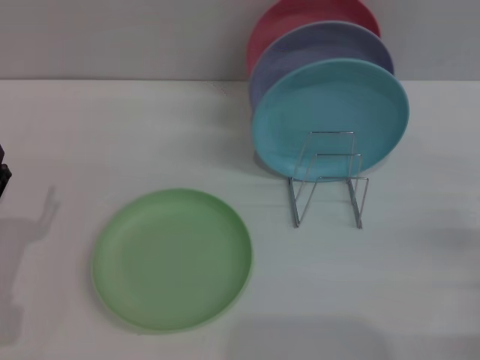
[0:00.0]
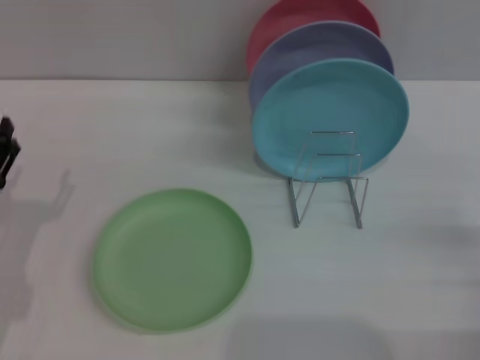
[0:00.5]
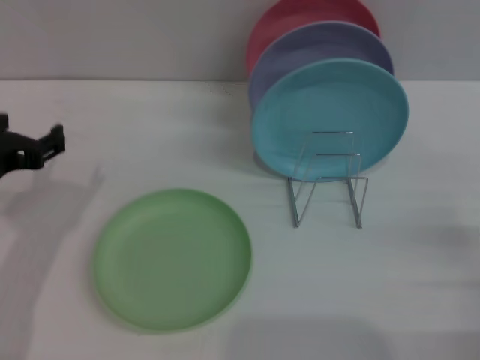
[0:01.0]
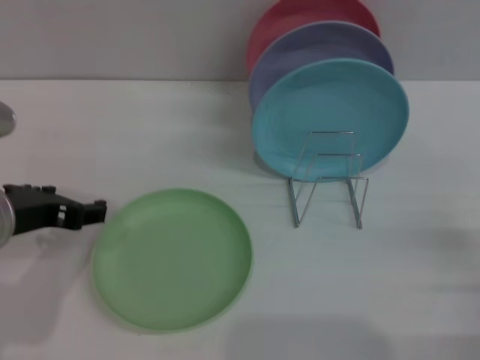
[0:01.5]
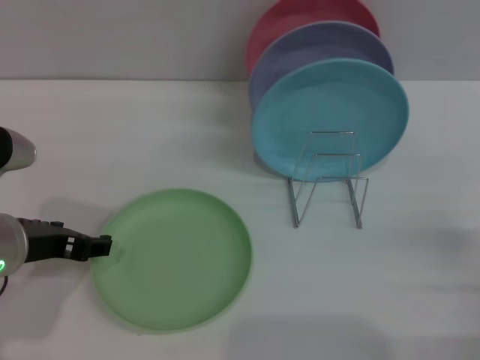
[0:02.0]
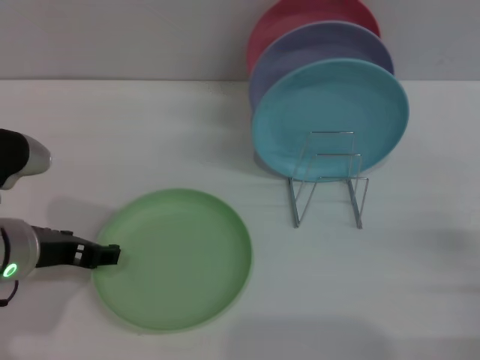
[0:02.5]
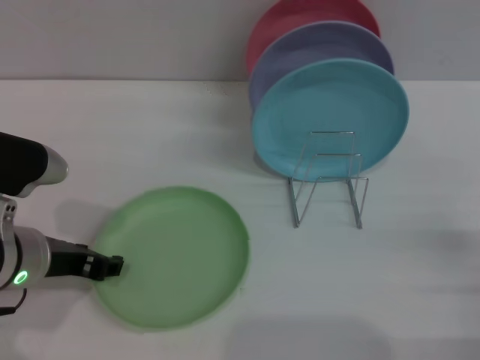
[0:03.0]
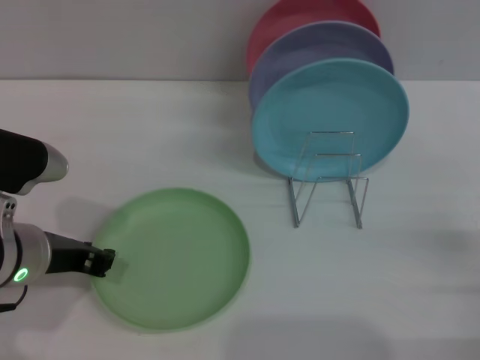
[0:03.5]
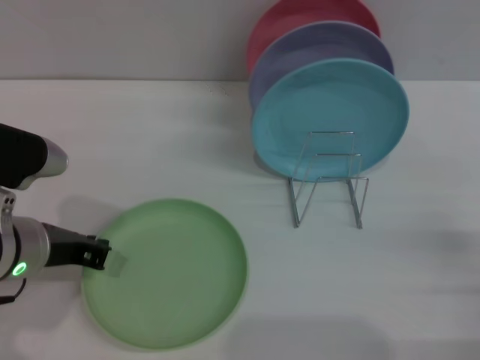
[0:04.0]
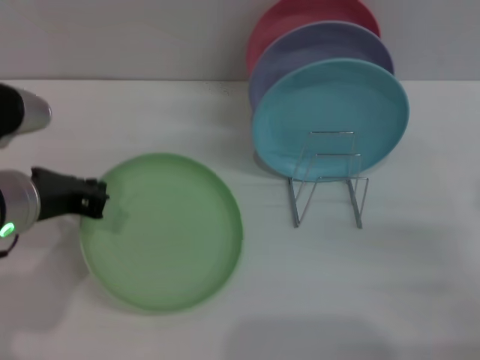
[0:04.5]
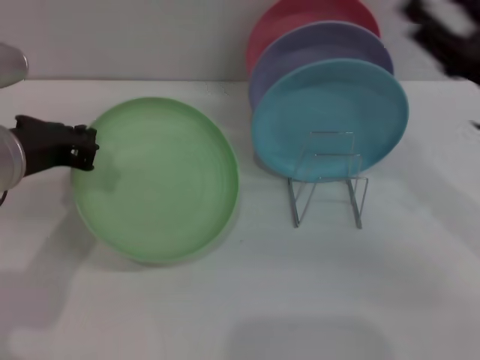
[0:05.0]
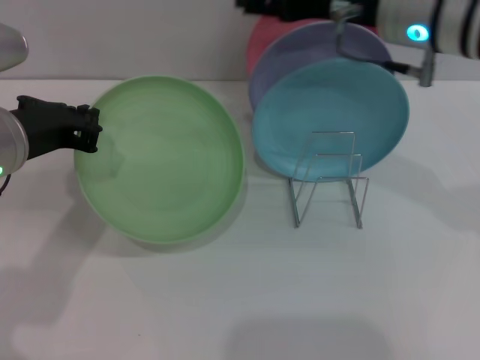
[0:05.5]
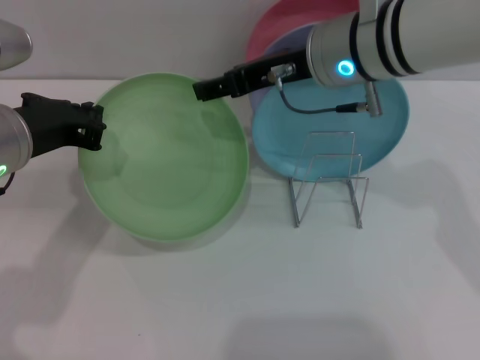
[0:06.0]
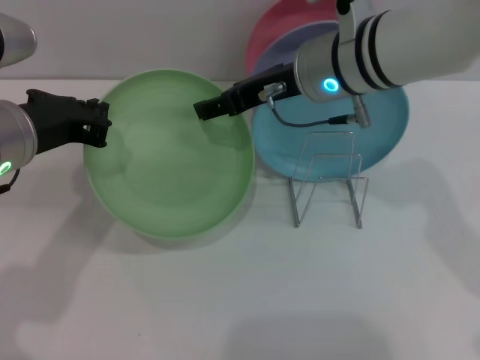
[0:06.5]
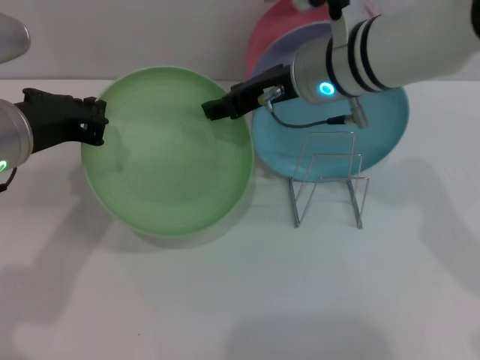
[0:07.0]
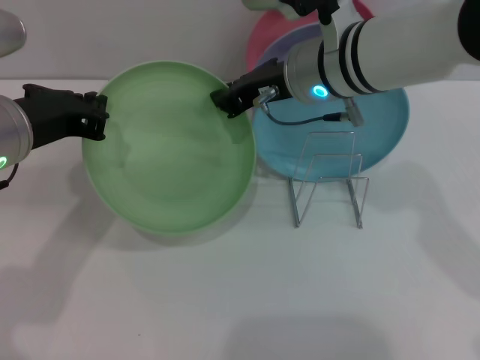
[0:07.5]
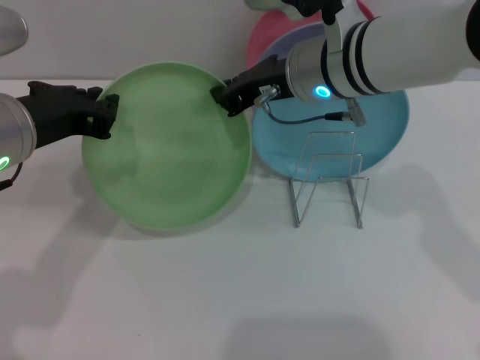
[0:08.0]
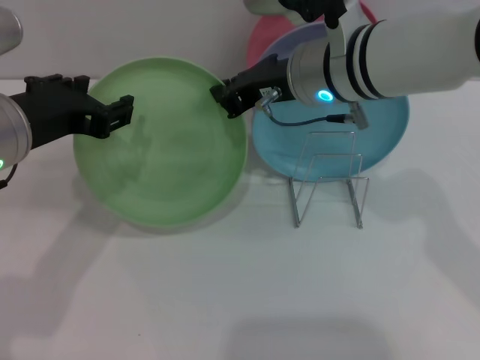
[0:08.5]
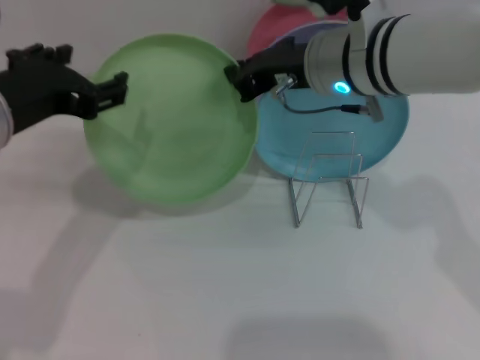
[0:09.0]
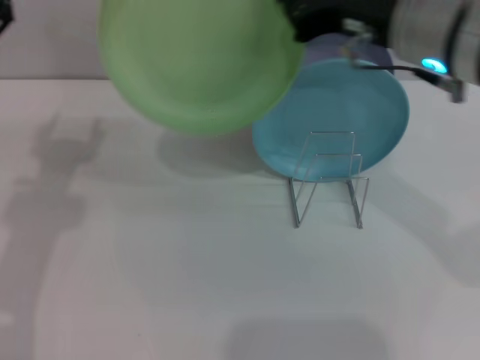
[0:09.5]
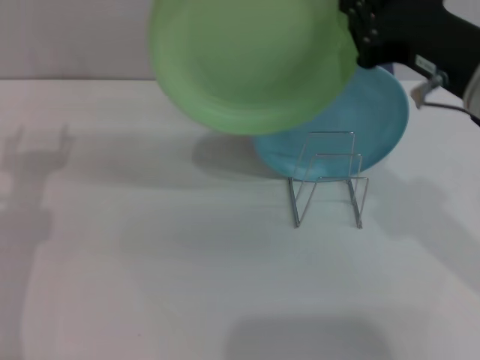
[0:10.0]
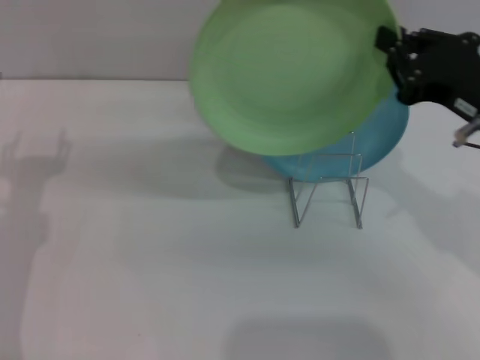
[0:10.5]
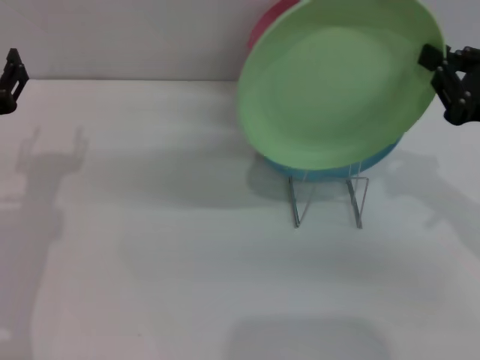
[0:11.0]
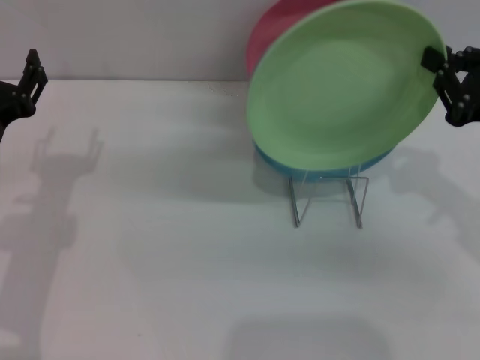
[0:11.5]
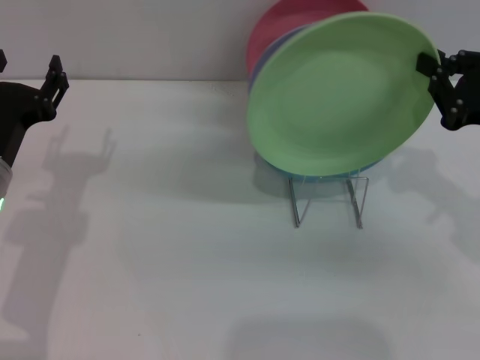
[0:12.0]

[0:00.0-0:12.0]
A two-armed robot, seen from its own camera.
Task of the whole recording: Grip the plate with one hand, pass it to the other, then set it on the shelf.
Step, 0:00.0 to 0:04.5: Pick up the plate with the left gripper.
Step, 0:05.0 to 0:09.0: Pass the plate from the left gripper to the right gripper.
0:00.0 to 0:02.0: The left gripper goes about 15 cm upward, to the right and forward.
0:02.0 to 0:04.0: The left gripper closes up.
0:04.0 to 0:06.0: The right gripper is displaced to the left, forward and upward by approximately 35 cm. Meanwhile the left gripper goes approximately 10 cm upward.
0:06.0 to 0:08.0: The right gripper closes its fingers.
0:08.0 to 0:10.0: The left gripper heads to the left and downward, covering some 10 cm, and opens. The right gripper shifts some 15 cm backward and to the right.
0:10.0 to 0:12.0: The right gripper travels to the right and downward by roughly 10 cm, while the left gripper moves downward, approximately 5 cm.

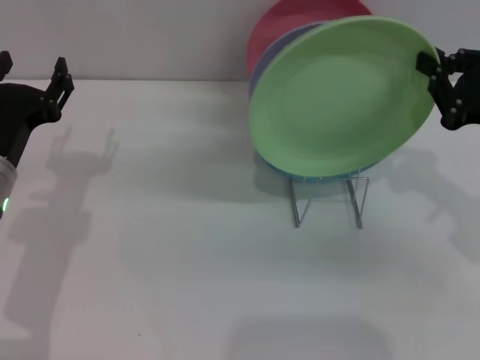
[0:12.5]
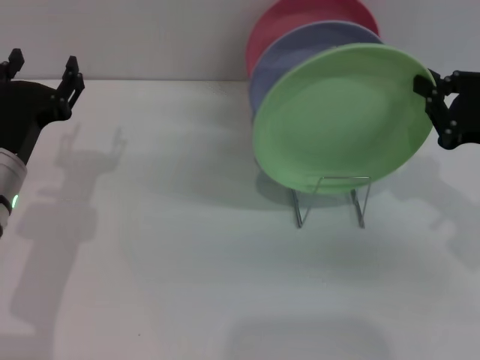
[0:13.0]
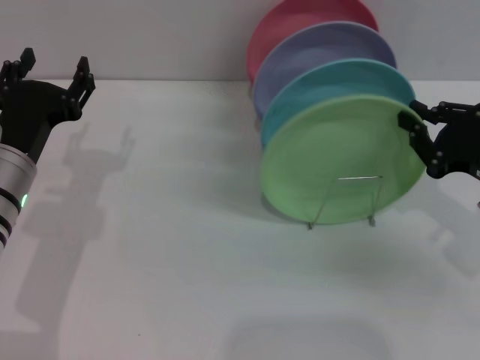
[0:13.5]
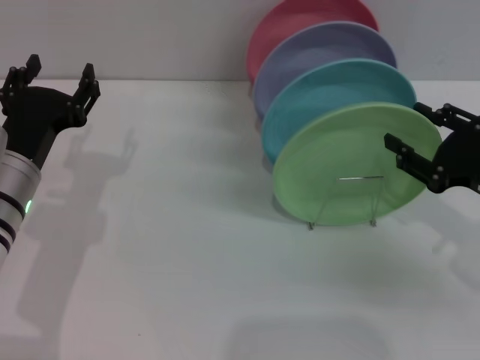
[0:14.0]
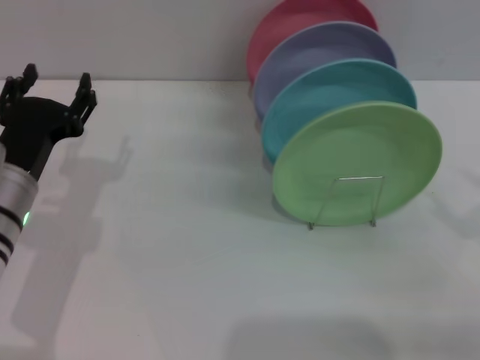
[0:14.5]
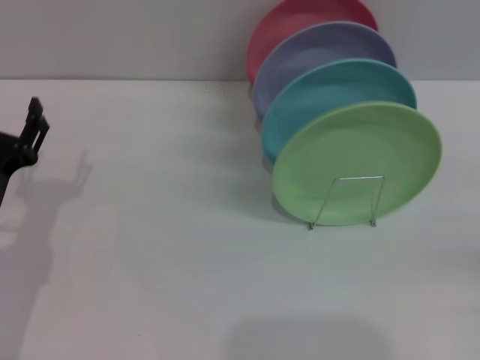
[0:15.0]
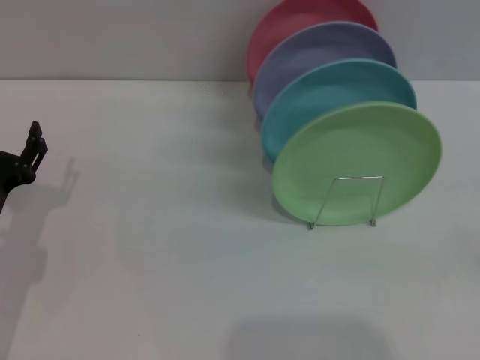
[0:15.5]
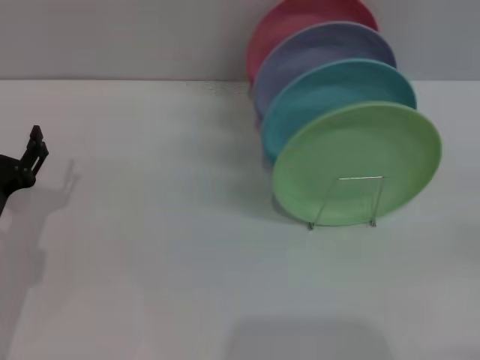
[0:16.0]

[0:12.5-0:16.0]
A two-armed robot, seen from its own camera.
Task of the whole recording: Grip the plate with one hand, pass it to the other, then set it on the shelf.
0:12.5 to 0:14.5: The right gripper is displaced backward, to the right and downward by some 10 cm, and opens up.
0:14.5 to 0:16.0: The left gripper goes approximately 10 cm to the left and downward.
